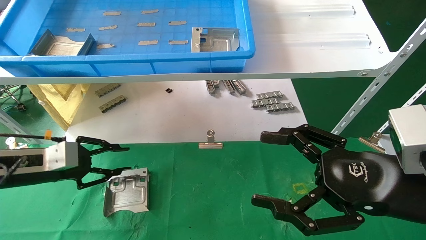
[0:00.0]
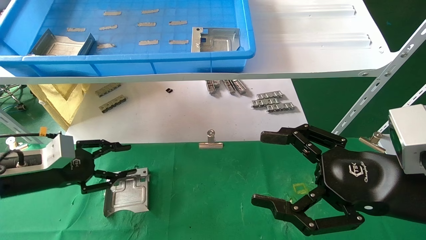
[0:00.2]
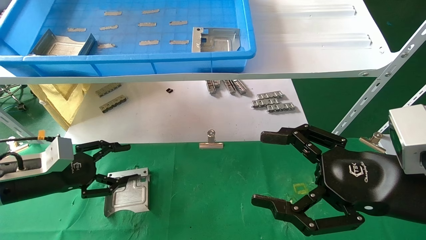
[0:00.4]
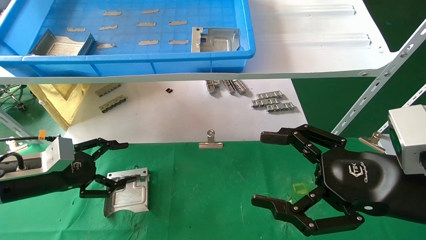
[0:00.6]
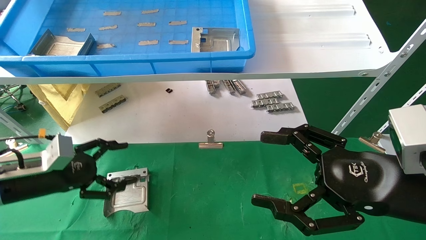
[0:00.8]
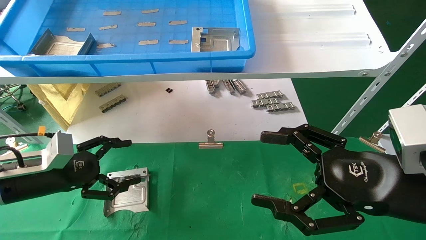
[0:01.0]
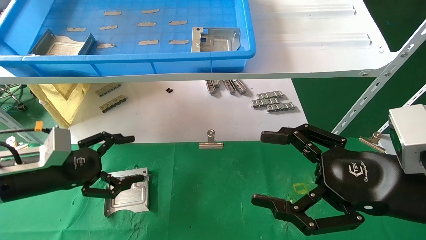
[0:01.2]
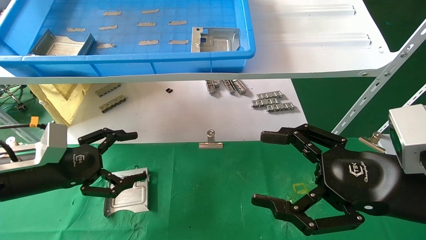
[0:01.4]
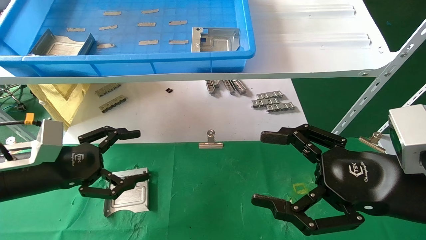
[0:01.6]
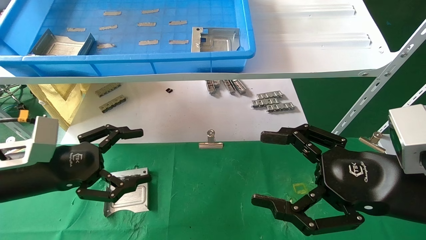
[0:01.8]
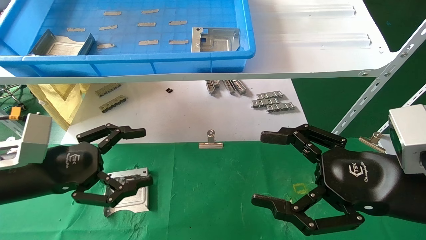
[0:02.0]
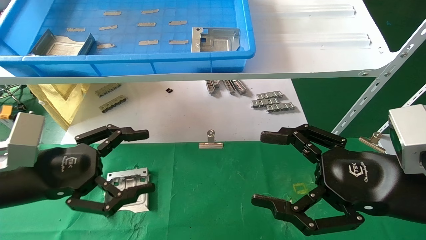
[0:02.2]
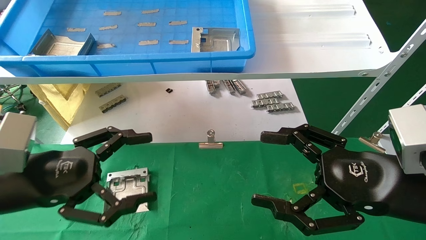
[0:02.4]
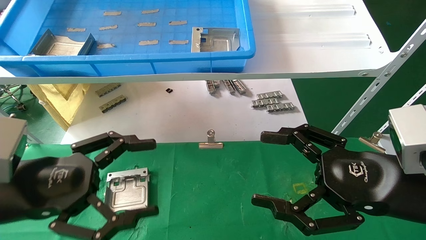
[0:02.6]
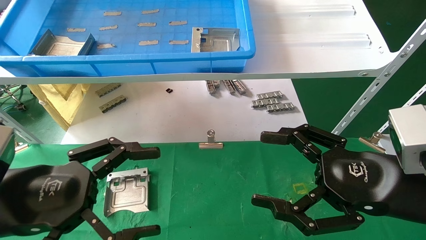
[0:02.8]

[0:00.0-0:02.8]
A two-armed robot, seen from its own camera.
Task of the whole recording: use the mechanical arm to pick up the parts and place them on the table.
0:00.0 to 0:01.4: The left gripper shifts by approximately 5 cm, and opens.
0:01.4 to 0:02.8: The left gripper goes about 15 cm backward and to the right.
